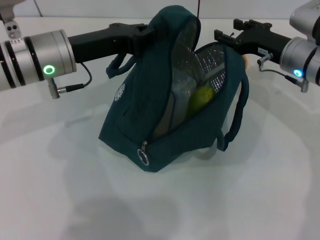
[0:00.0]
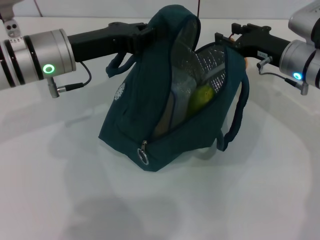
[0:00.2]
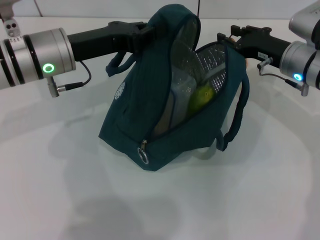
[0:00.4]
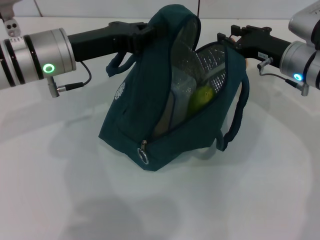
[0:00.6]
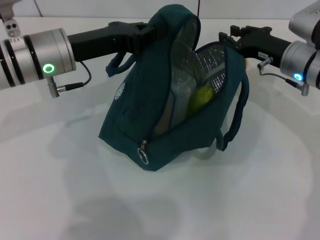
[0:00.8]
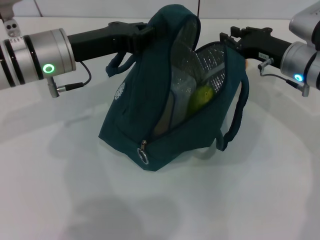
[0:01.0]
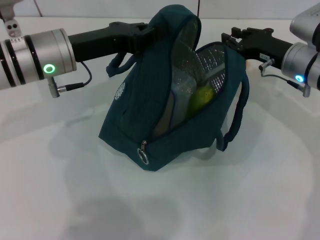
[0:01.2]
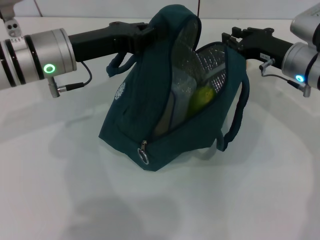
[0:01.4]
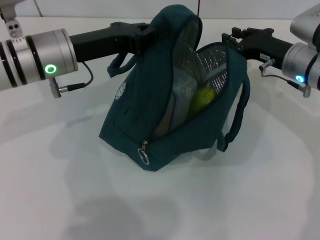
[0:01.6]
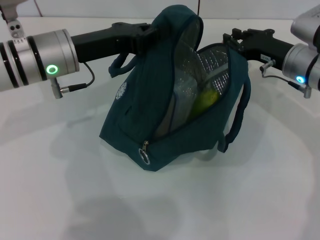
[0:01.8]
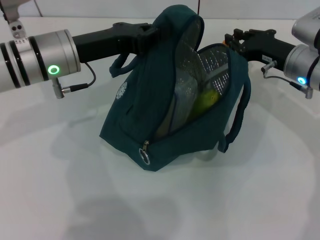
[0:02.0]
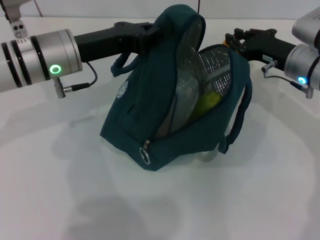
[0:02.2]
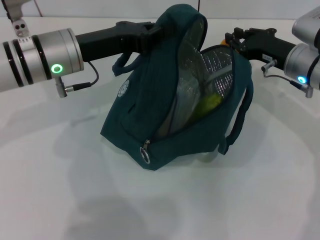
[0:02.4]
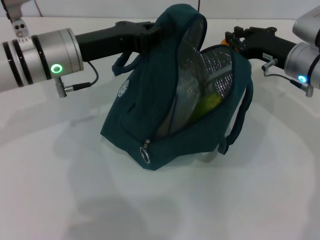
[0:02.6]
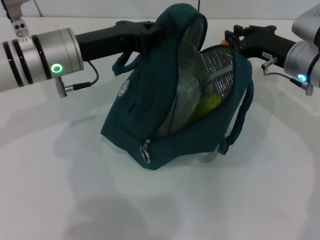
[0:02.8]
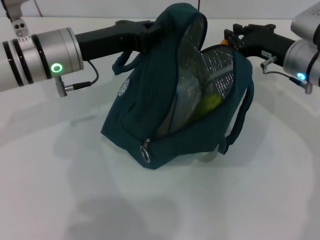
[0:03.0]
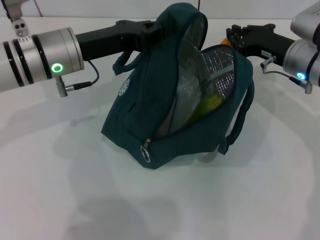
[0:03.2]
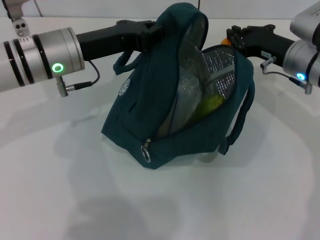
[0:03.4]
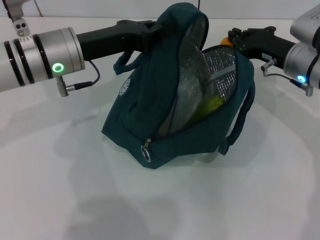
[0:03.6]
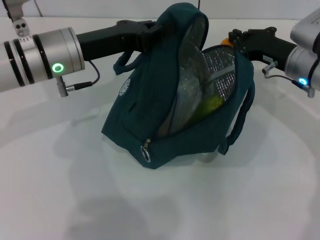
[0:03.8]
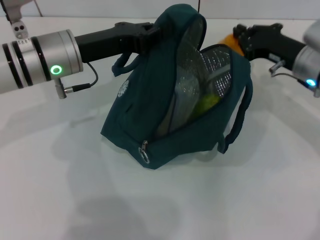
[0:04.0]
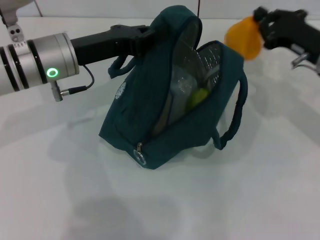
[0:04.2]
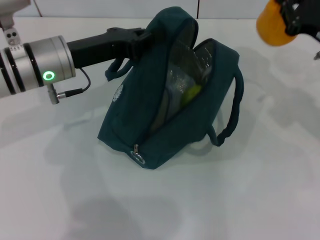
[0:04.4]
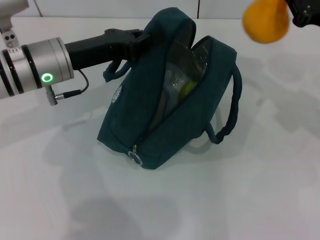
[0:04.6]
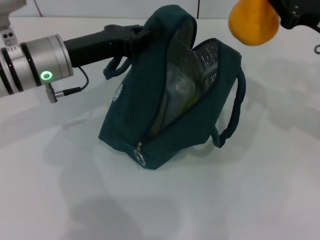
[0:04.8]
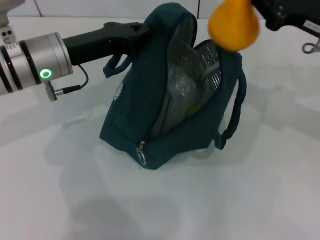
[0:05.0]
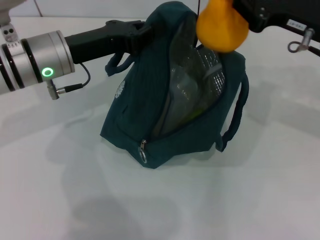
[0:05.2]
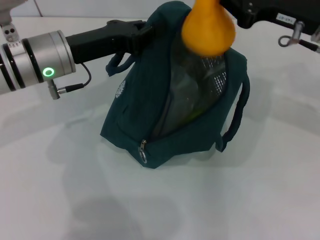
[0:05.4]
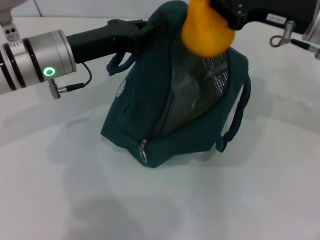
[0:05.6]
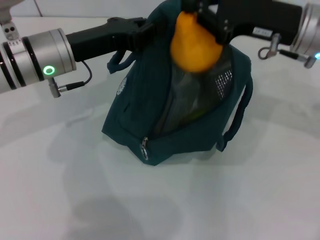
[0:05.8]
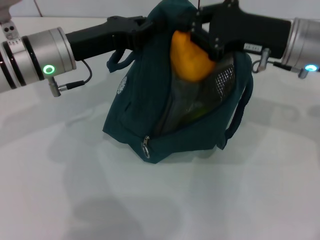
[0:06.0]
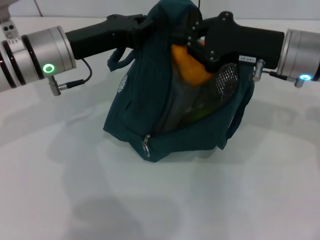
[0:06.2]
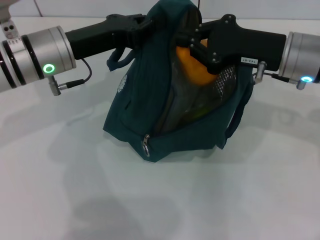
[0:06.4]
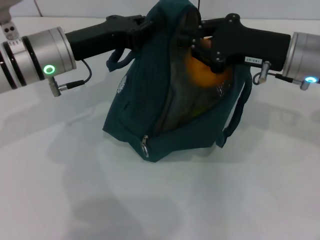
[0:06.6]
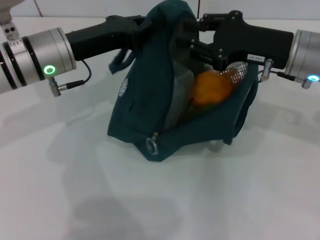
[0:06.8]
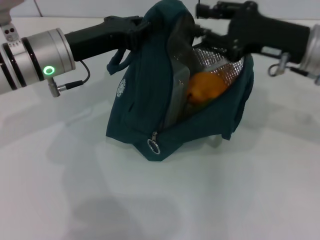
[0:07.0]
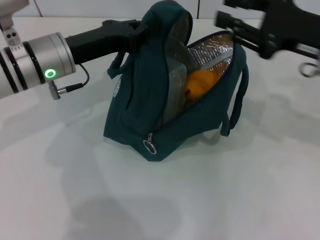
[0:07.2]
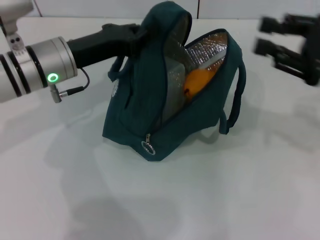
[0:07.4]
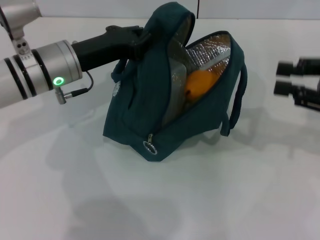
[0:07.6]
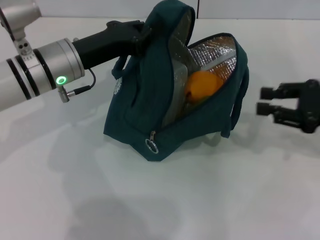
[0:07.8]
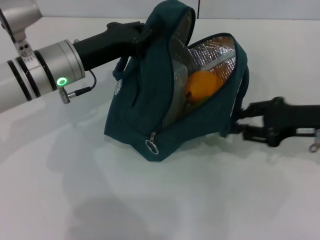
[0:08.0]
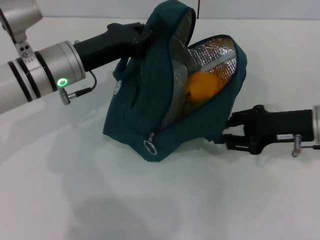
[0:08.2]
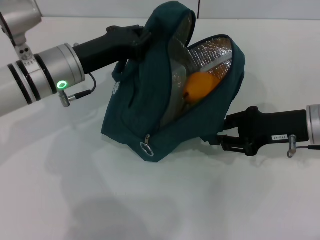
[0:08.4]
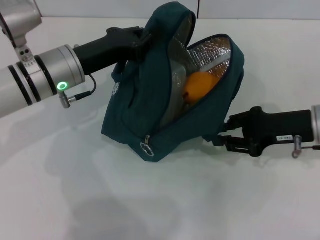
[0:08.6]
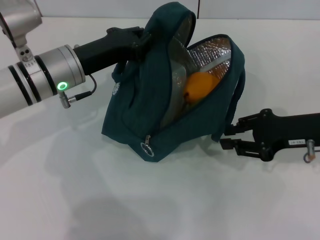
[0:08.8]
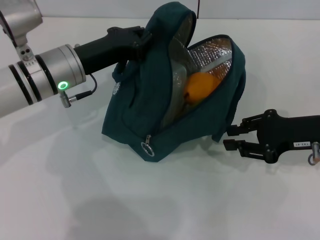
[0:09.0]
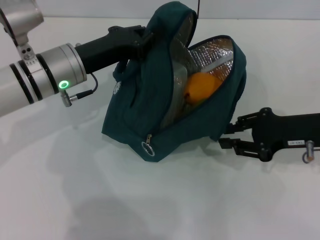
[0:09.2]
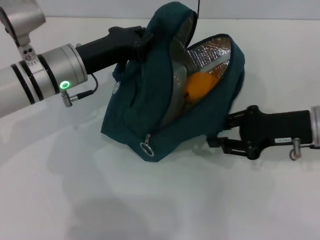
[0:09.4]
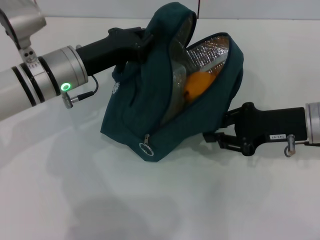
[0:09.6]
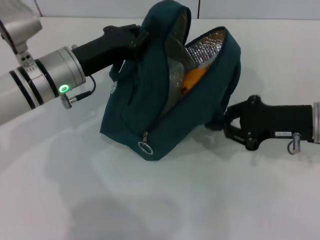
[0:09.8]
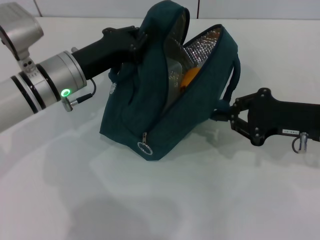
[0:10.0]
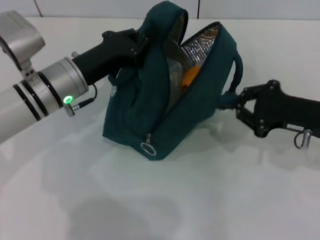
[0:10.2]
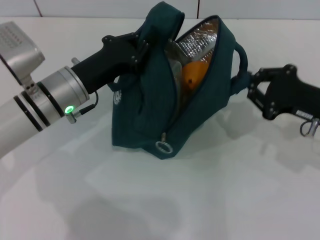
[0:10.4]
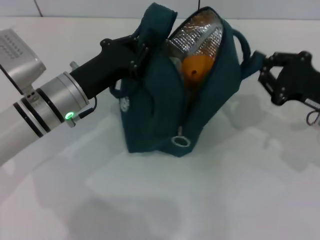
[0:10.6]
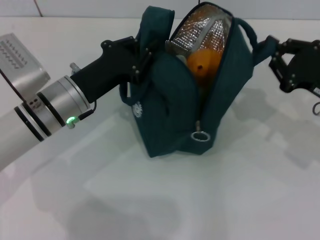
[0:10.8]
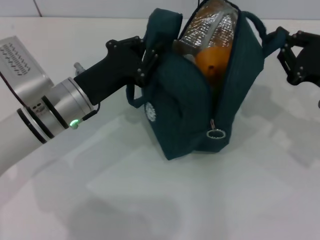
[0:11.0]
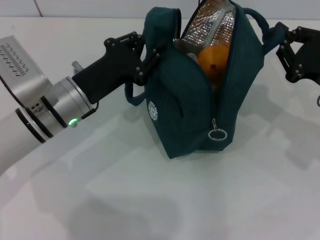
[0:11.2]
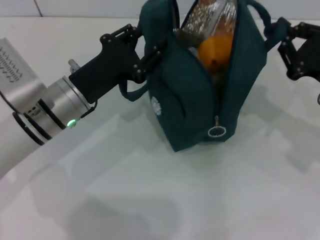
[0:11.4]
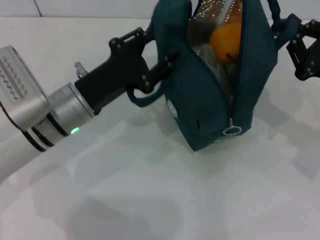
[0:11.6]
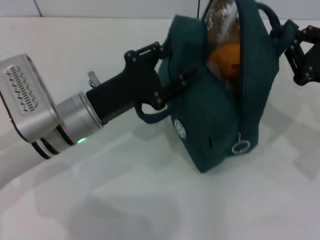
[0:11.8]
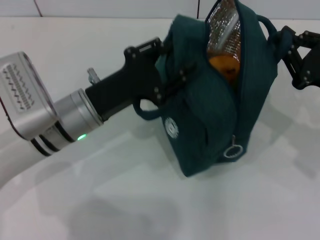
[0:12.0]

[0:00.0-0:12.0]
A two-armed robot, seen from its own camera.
Step, 0:00.0 to 0:03.6: Grab the pear with your right hand.
0:00.0 to 0:01.6: The right gripper closes.
0:01.6 to 0:03.0: Both grippers stay put.
0:03.0 to 0:04.4: The right gripper shifts about 5 cm to the right.
0:04.4 to 0:06.0: The right gripper moves to the left, some 10 cm.
0:06.0 to 0:07.6: The right gripper goes some 15 cm to the right and backward, and opens its fingers.
0:07.6 to 0:09.0: The right gripper shifts about 10 cm downward and to the left.
0:10.4 to 0:12.0: The left gripper opens.

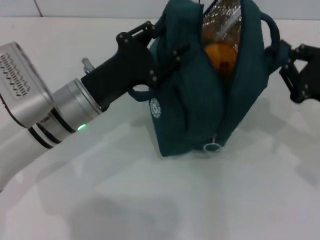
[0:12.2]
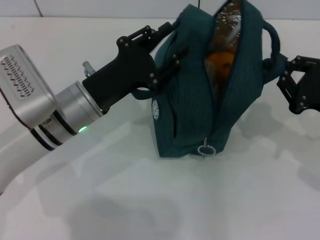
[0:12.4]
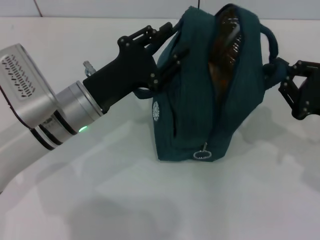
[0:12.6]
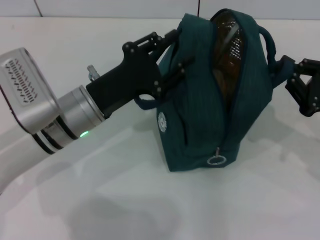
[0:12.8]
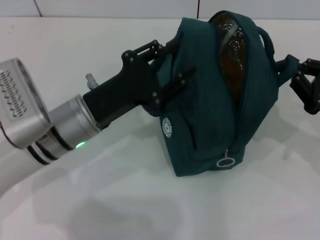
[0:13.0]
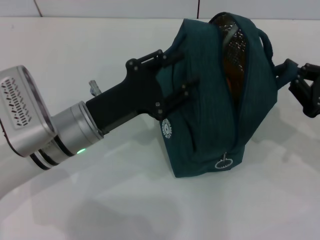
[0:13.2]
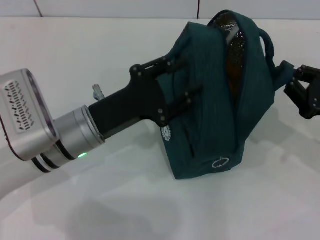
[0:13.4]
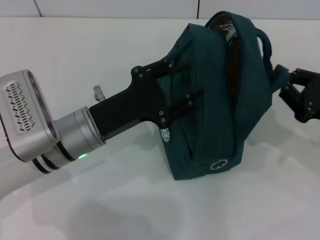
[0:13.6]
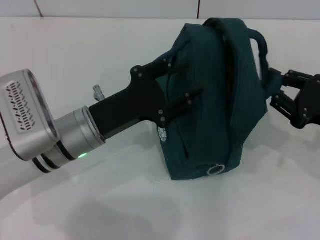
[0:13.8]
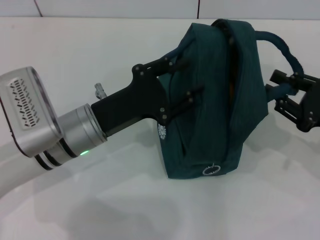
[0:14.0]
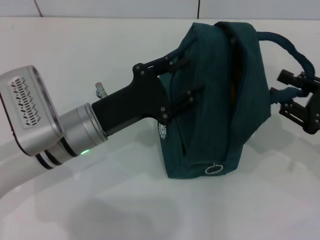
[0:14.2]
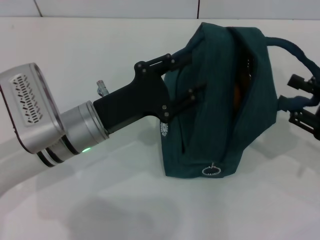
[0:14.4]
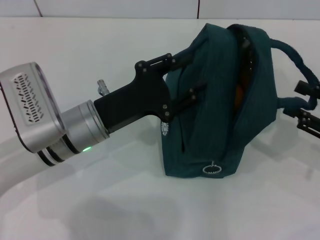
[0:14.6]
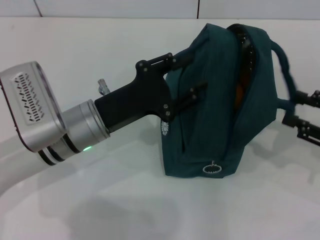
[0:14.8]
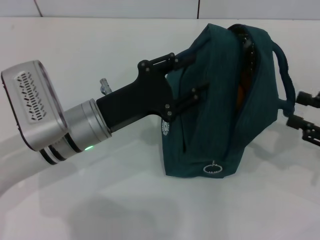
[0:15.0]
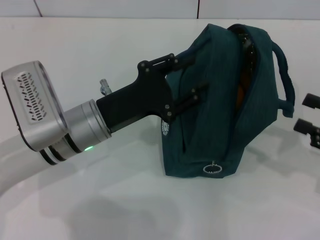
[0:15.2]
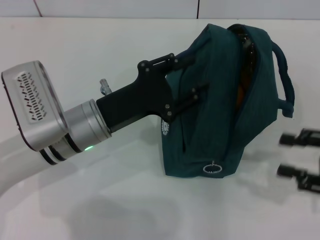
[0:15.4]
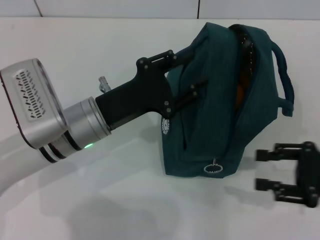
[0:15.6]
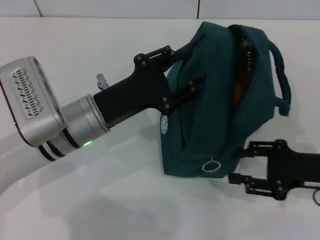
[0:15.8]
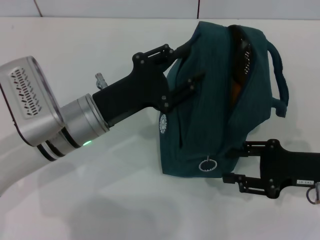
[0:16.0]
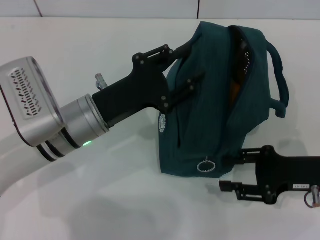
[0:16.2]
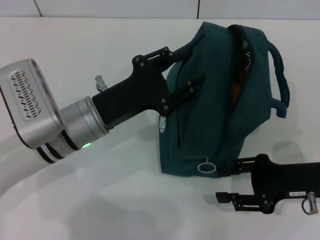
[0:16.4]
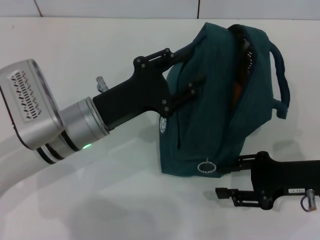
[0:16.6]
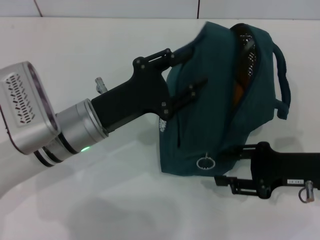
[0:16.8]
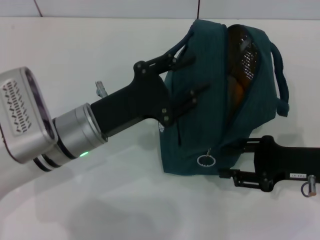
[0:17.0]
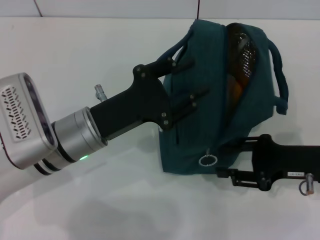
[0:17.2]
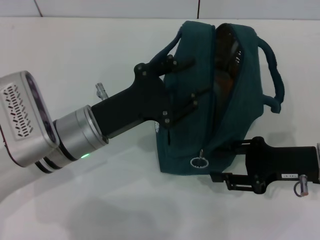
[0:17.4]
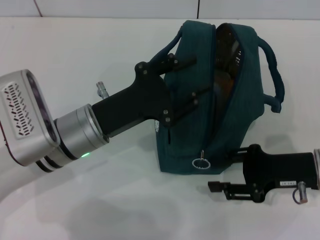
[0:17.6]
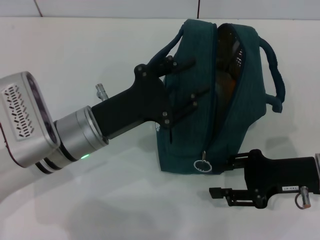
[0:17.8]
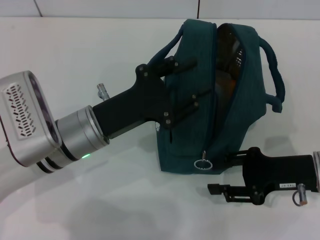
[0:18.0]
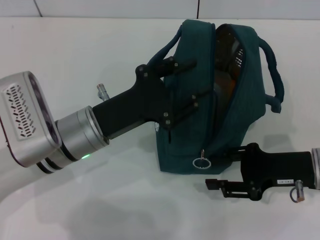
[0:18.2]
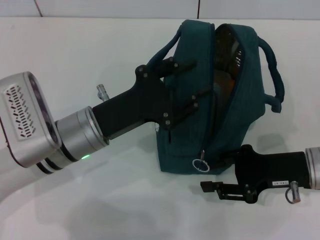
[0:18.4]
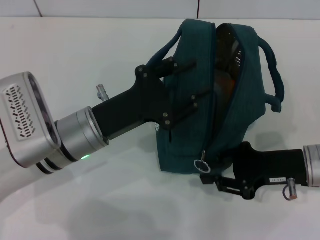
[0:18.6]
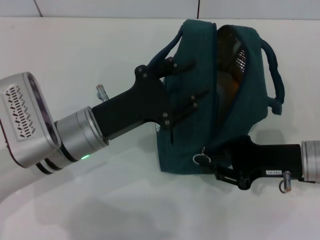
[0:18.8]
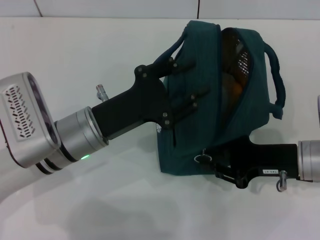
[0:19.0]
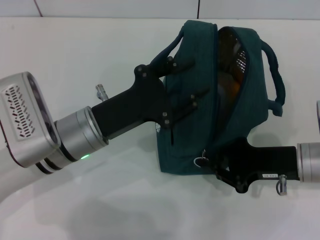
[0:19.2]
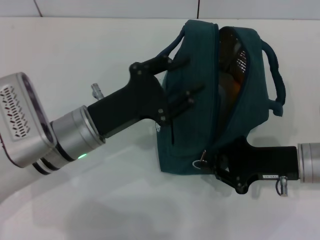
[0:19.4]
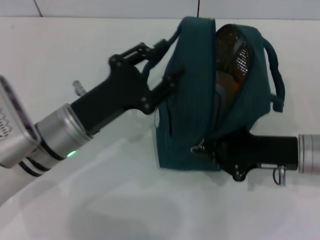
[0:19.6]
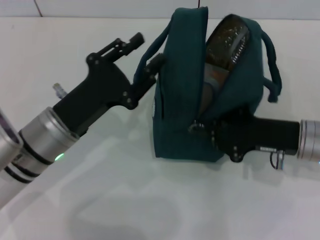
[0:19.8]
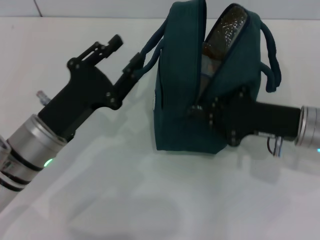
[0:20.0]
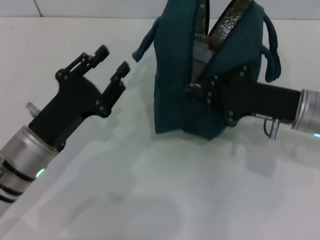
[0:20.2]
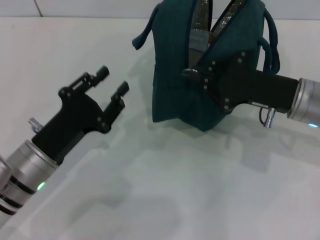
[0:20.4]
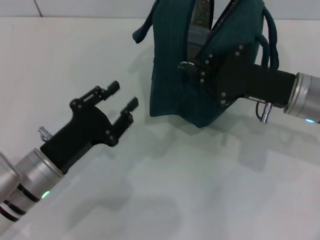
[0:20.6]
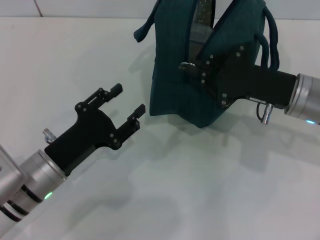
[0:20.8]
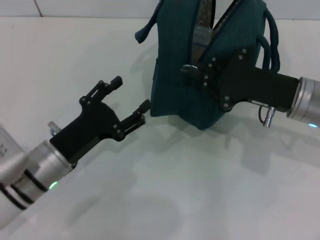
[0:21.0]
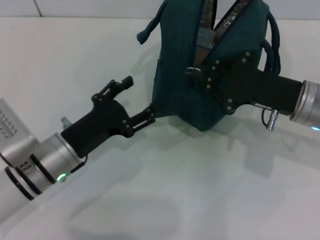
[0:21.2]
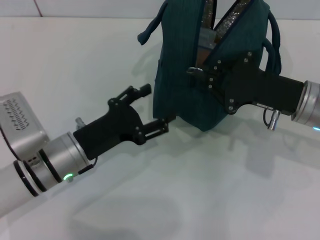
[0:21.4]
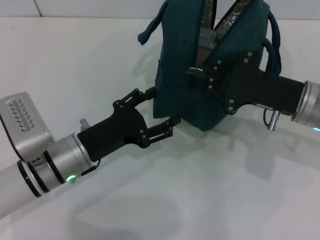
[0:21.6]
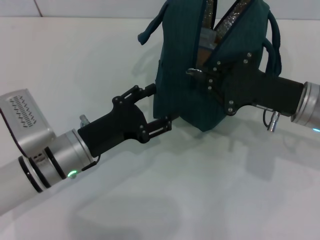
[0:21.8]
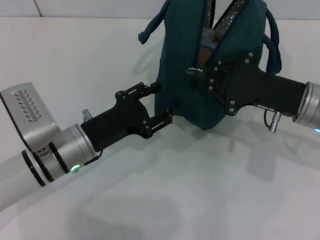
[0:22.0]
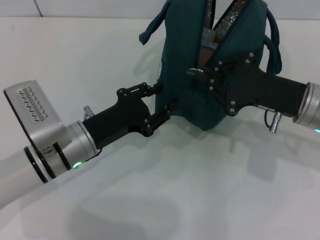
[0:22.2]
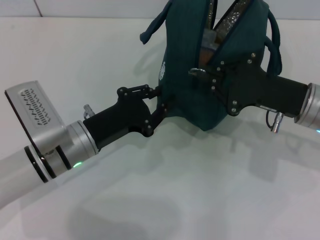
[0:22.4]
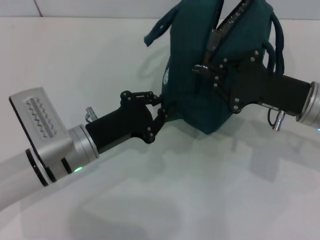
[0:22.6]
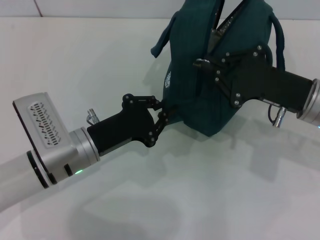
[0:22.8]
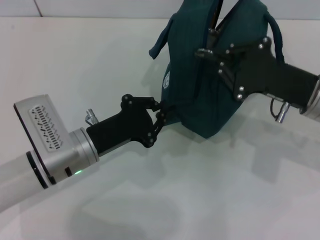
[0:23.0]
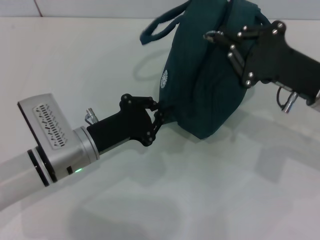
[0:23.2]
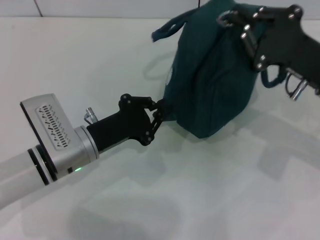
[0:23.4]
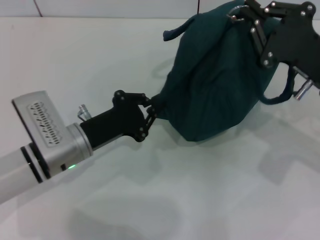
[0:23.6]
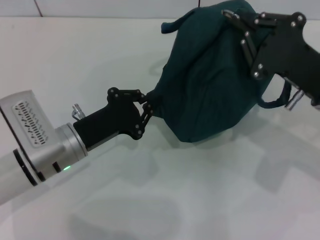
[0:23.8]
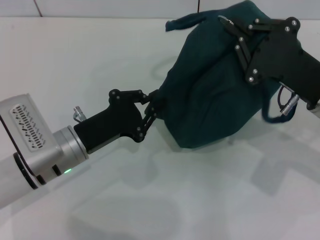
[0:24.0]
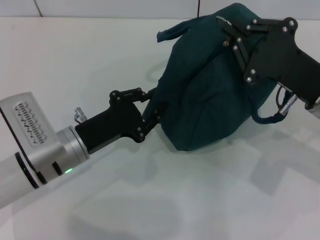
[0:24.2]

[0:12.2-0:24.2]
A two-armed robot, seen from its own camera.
Step, 0:12.2 to 0:14.4: Hold the lunch bag with your right hand.
Step, 0:14.6 to 0:19.2: Hold the lunch bag with your left hand.
0:13.8 to 0:15.2: The right gripper moves to the right, roughly 5 cm, and opens its fingers.
0:15.2 to 0:16.6: The right gripper travels to the left by approximately 10 cm.
0:16.6 to 0:18.2: The grippers move only a little.
0:18.2 to 0:19.8: The right gripper closes.
0:19.8 to 0:21.2: The left gripper opens its fingers.
0:21.2 to 0:22.6: The left gripper closes up.
